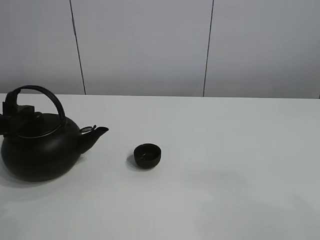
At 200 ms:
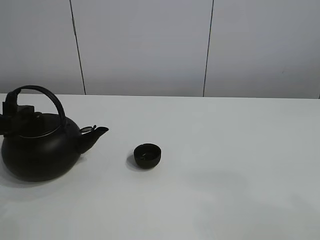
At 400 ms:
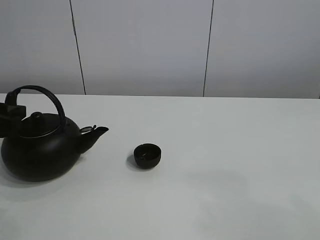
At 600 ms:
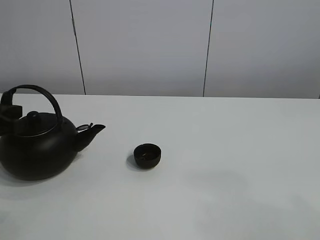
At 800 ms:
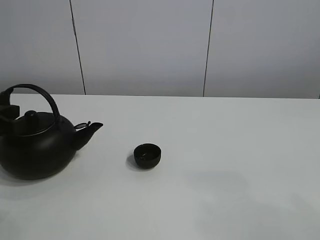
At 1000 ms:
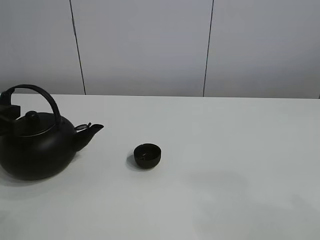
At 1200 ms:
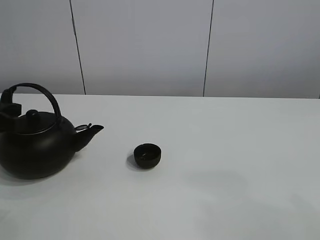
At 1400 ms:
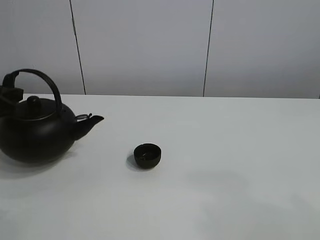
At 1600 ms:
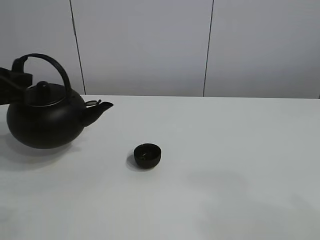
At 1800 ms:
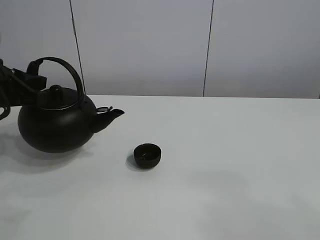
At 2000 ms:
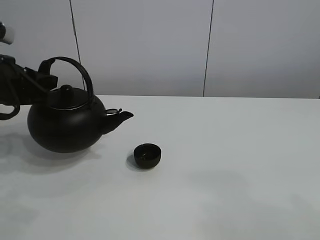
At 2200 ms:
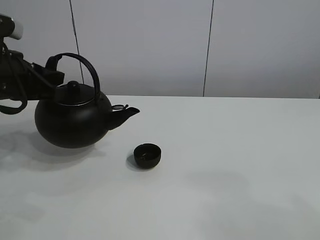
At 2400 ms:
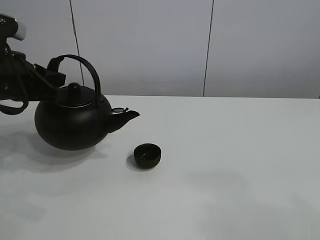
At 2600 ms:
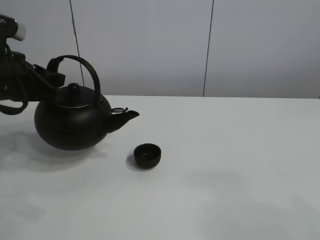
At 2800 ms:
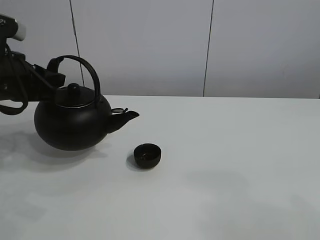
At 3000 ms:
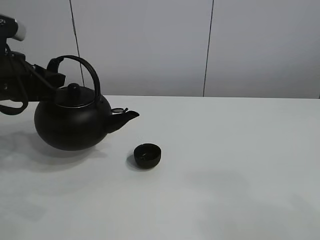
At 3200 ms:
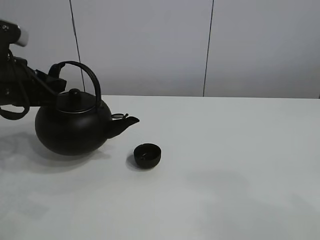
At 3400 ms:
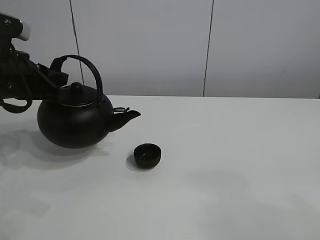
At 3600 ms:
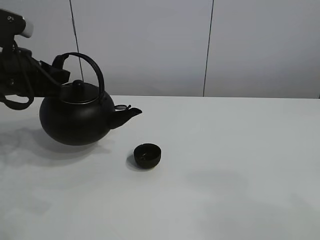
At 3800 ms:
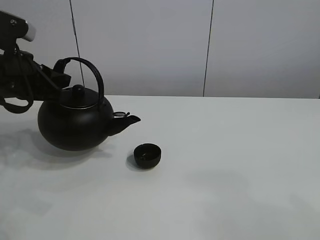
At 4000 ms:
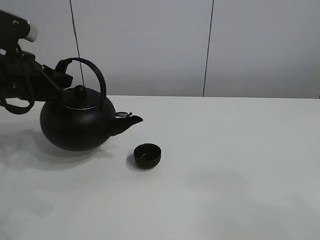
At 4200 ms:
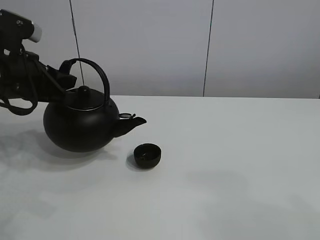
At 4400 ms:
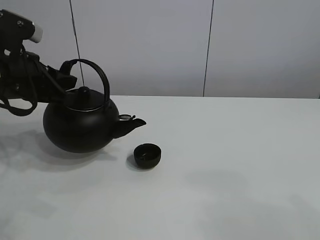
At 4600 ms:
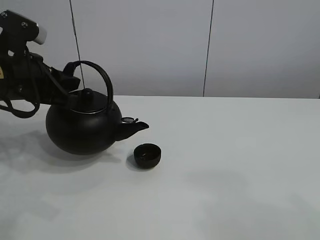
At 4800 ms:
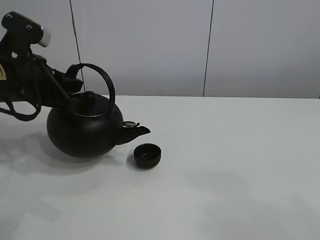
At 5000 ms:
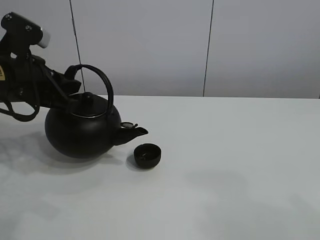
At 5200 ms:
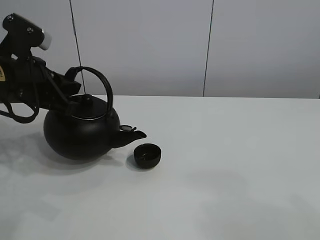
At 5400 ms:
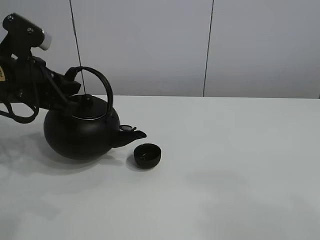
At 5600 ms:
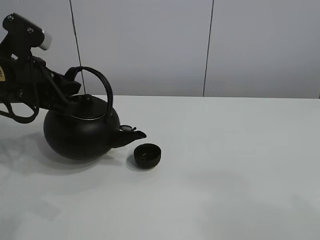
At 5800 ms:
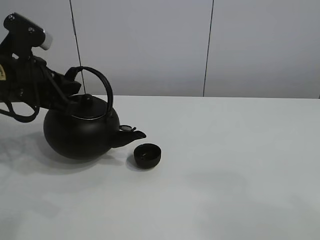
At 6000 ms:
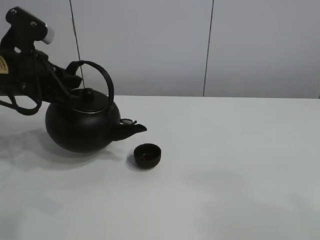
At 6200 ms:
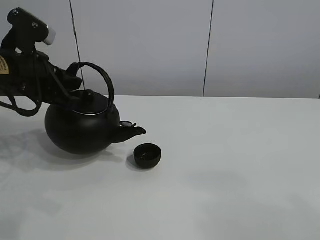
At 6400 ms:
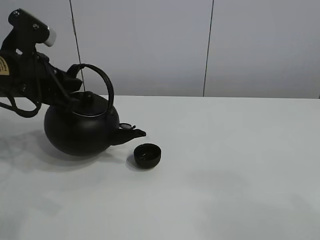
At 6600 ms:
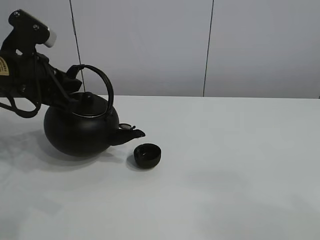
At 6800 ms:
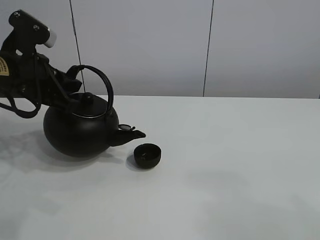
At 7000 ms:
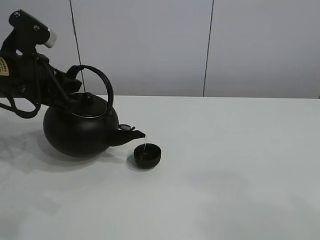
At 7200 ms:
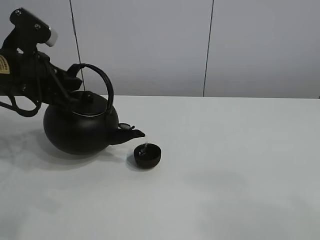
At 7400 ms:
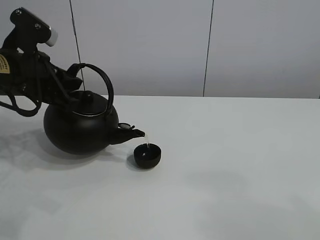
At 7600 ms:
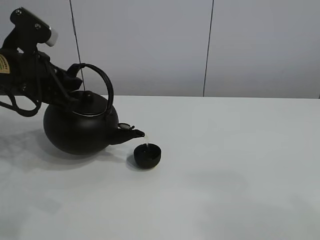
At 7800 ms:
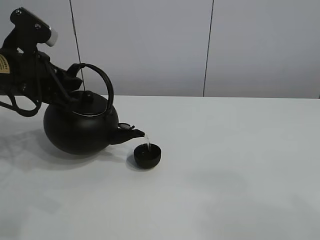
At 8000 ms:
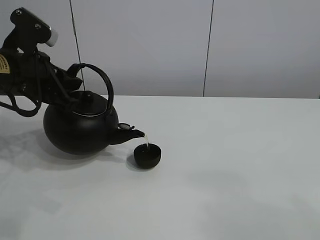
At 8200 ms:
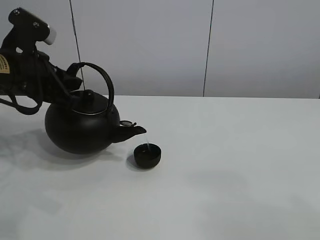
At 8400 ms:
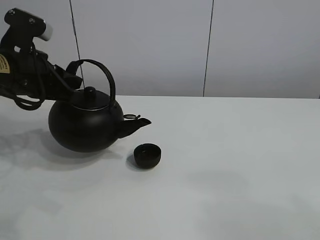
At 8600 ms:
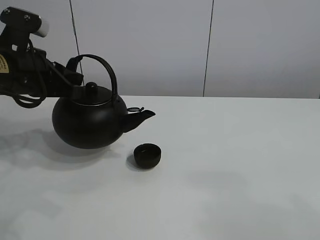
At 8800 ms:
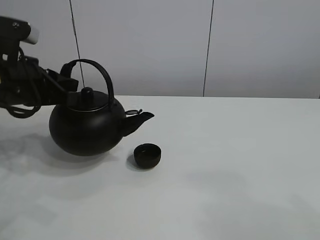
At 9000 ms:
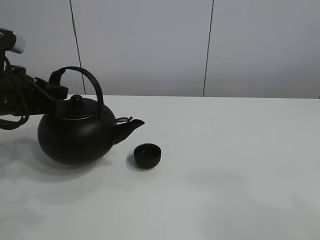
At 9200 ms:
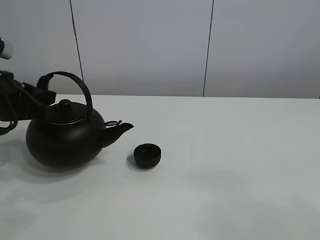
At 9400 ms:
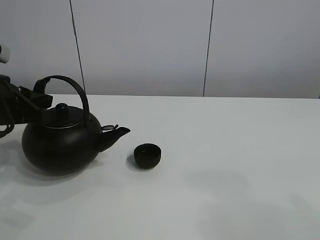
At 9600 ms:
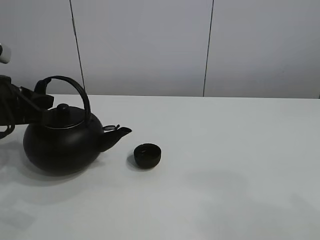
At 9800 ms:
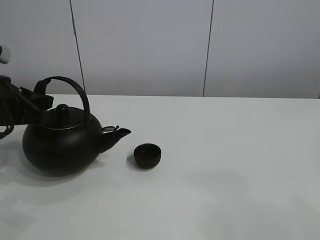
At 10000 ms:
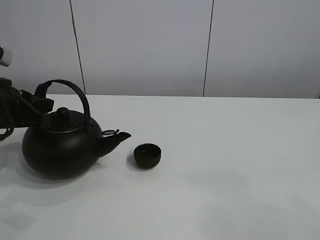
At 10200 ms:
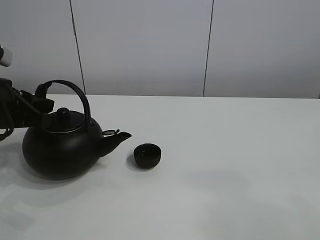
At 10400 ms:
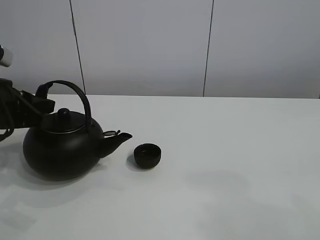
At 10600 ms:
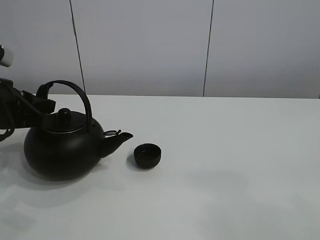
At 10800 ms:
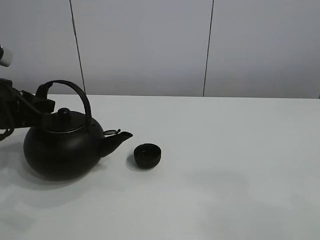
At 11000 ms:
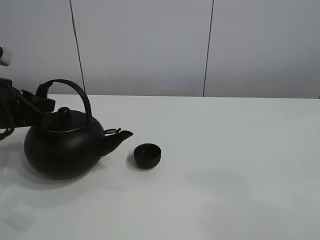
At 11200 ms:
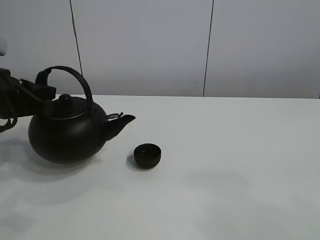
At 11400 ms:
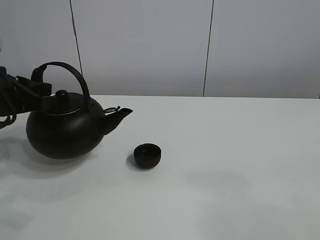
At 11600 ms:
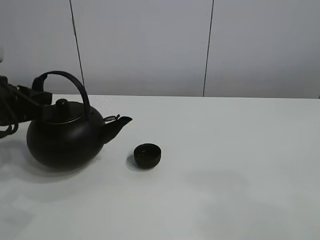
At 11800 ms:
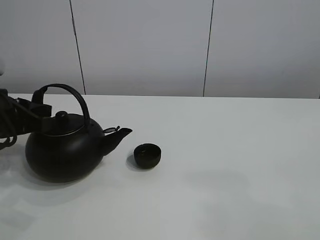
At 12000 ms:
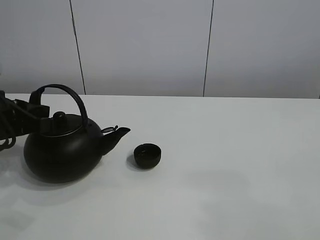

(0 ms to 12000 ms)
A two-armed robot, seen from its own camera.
Task of the whole recording: pour tea into the teacup.
Step, 1600 ms - 8200 ms: Pour tea into the teacup with the left gripper.
0 ms - 1600 ms: The left gripper moves approximately 5 cm, and closes its fingers.
1600 ms - 4400 ms: The grippers move only a little.
4400 ms - 6000 ms: The grippers move only a little.
6000 ms - 7600 ms: Neither gripper changes place.
7600 ms - 9000 ms: The grippers move only a little.
9000 ms - 12000 ms: The grippers move only a little.

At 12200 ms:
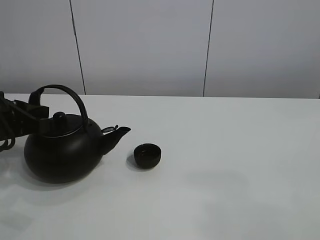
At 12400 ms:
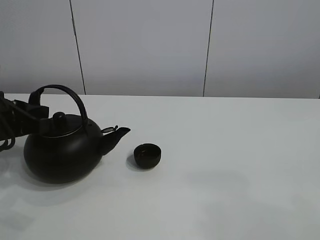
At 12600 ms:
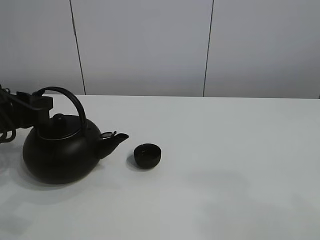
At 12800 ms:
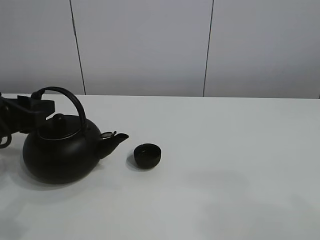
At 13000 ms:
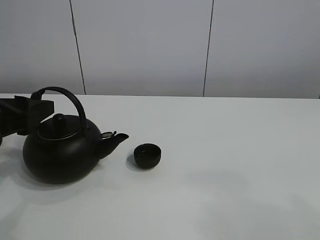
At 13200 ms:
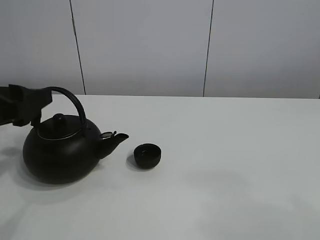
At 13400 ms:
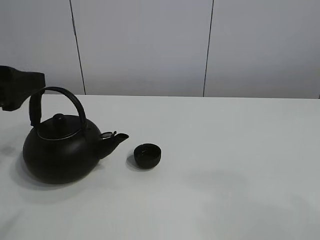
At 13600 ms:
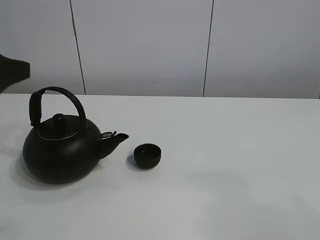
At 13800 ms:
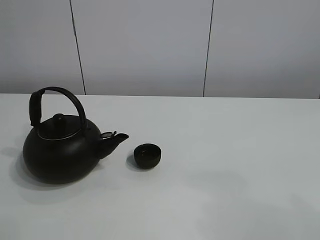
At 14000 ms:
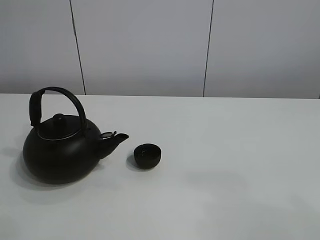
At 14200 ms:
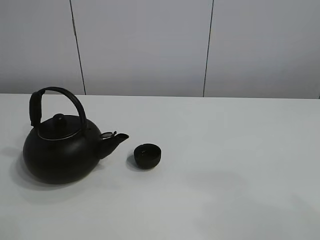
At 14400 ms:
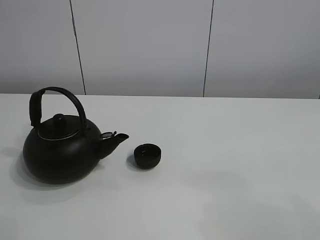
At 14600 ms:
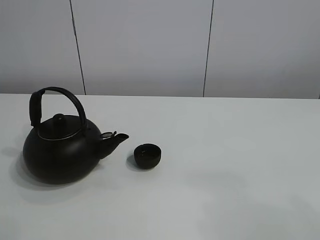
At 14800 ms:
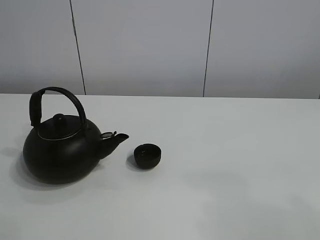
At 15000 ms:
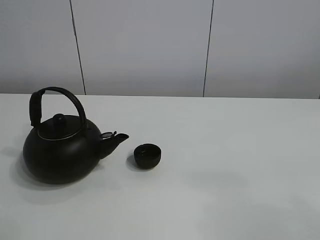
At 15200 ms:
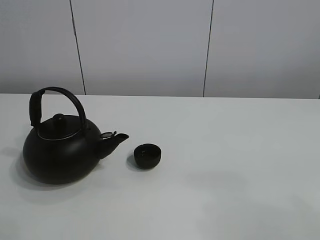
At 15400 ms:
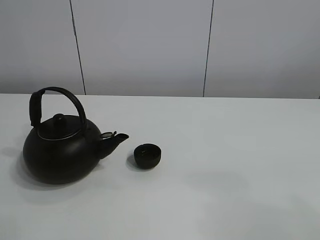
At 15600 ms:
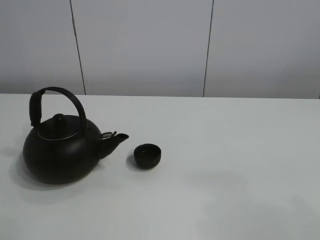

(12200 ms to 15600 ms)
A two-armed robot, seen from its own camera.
Task of the whole recording: pour tea into the teacup.
12200 ms - 13800 ms: The left gripper goes about 20 cm upward and backward, and opens up.
